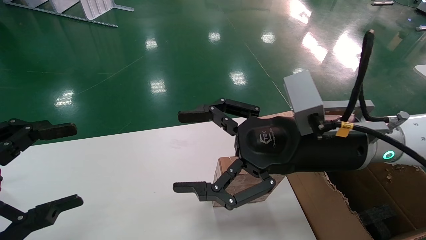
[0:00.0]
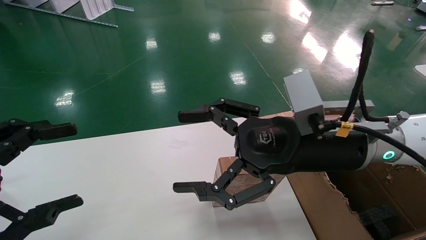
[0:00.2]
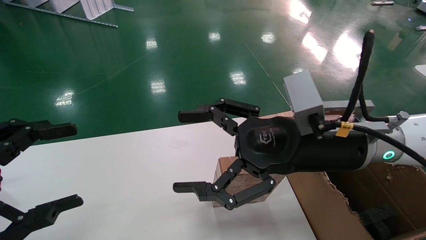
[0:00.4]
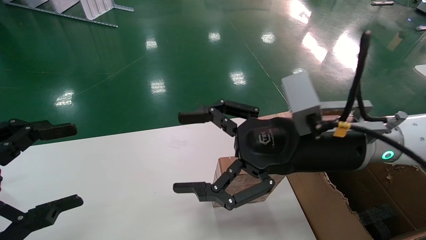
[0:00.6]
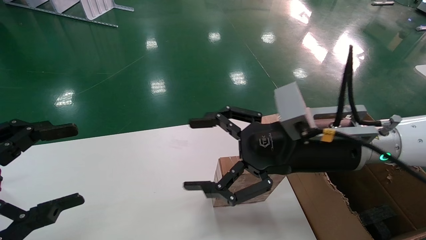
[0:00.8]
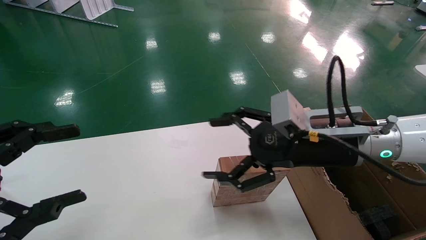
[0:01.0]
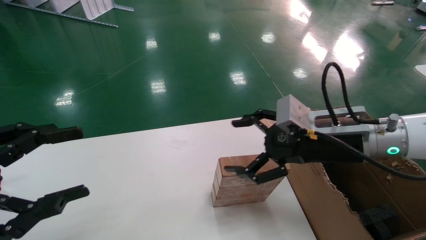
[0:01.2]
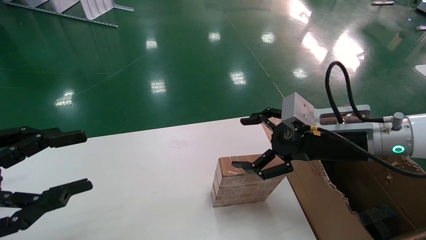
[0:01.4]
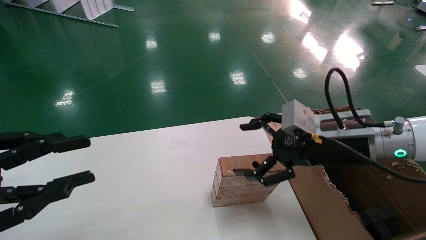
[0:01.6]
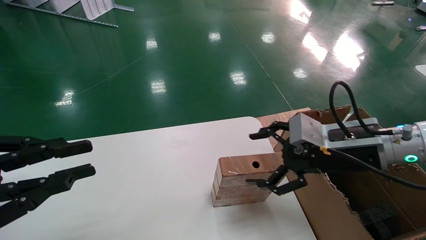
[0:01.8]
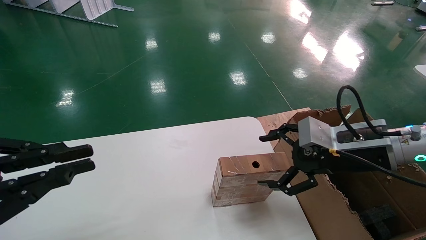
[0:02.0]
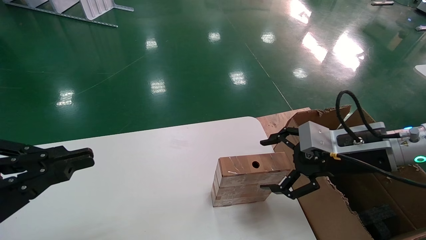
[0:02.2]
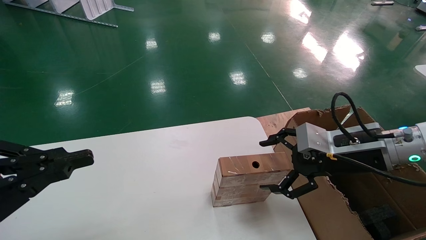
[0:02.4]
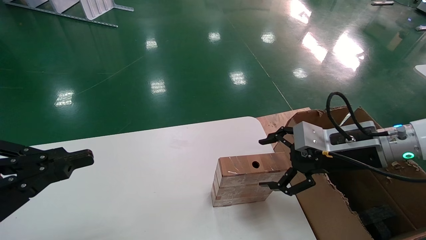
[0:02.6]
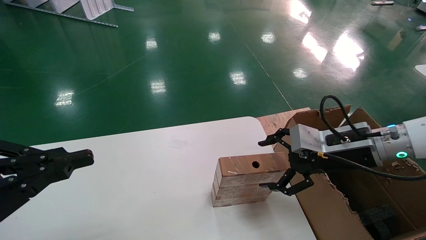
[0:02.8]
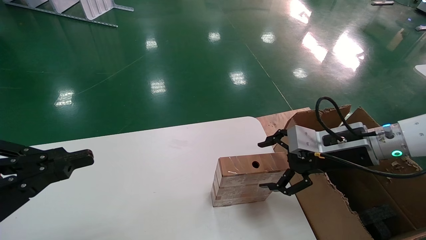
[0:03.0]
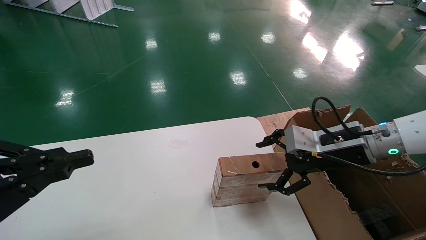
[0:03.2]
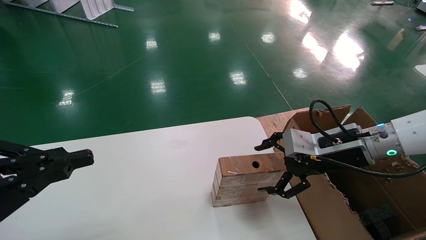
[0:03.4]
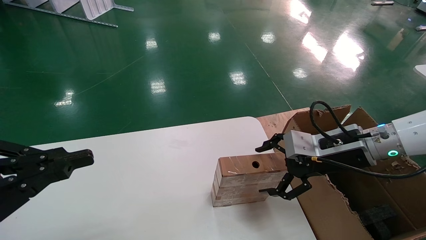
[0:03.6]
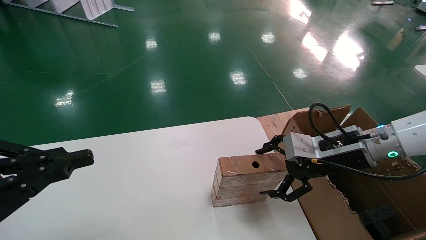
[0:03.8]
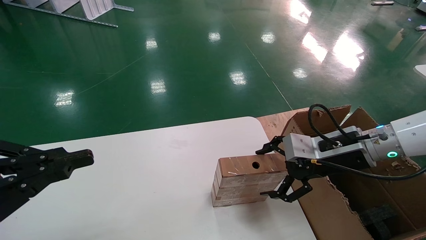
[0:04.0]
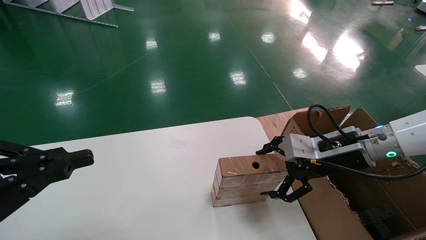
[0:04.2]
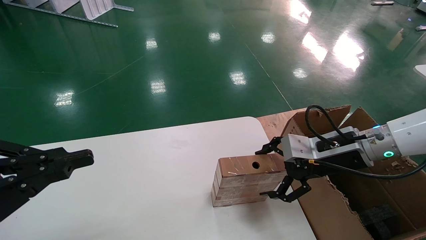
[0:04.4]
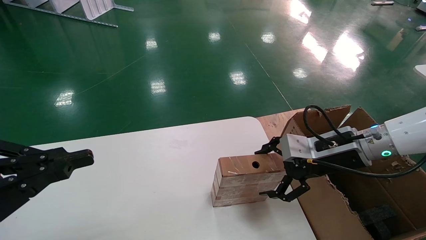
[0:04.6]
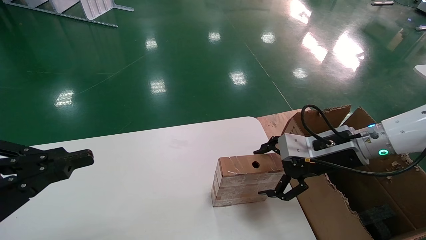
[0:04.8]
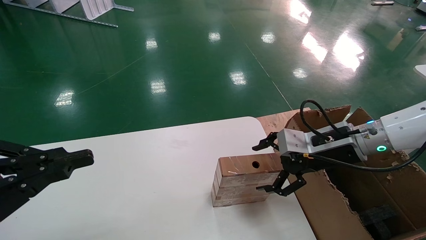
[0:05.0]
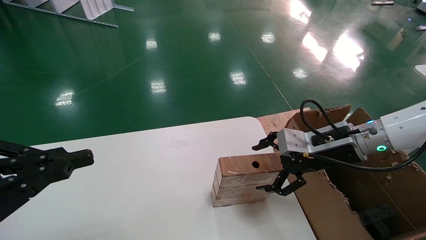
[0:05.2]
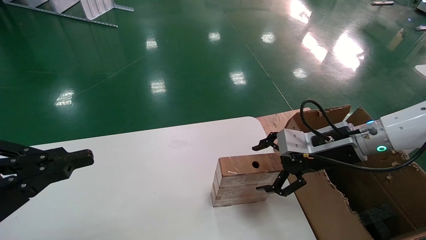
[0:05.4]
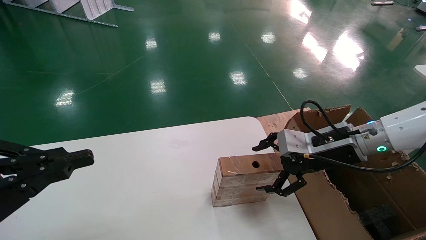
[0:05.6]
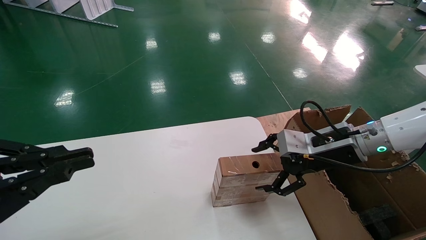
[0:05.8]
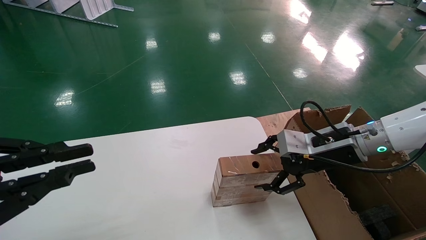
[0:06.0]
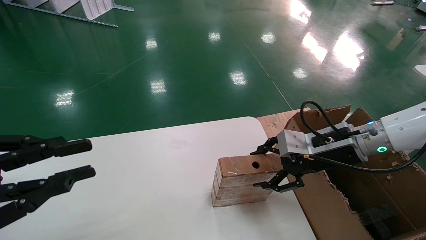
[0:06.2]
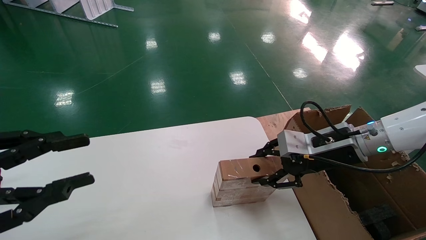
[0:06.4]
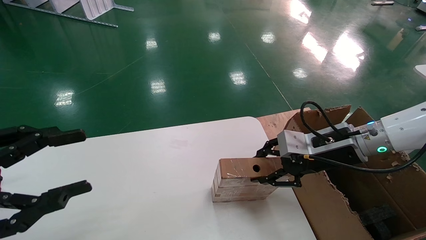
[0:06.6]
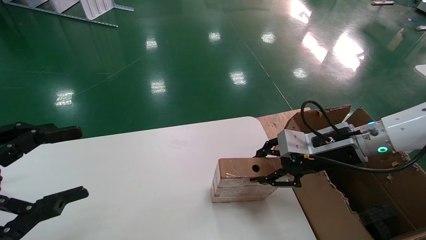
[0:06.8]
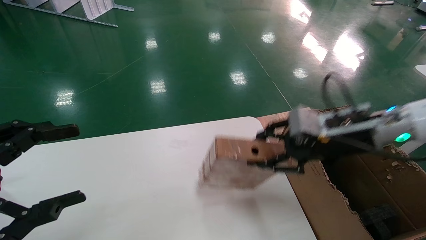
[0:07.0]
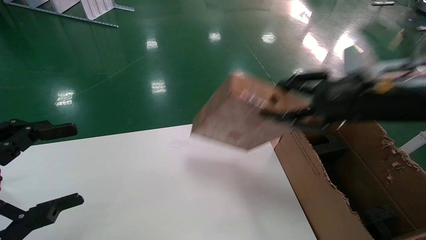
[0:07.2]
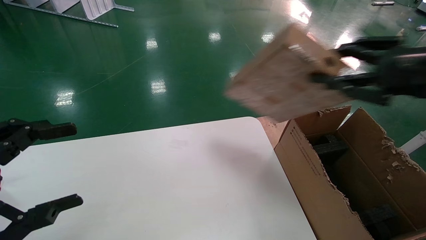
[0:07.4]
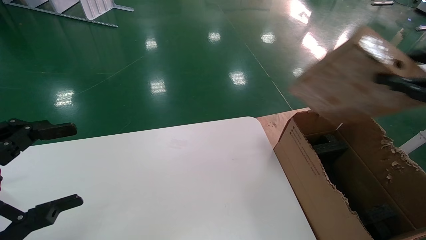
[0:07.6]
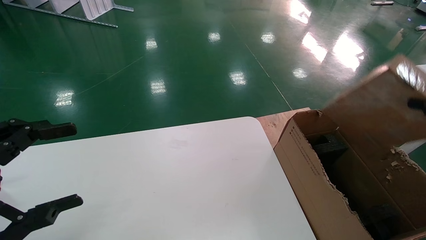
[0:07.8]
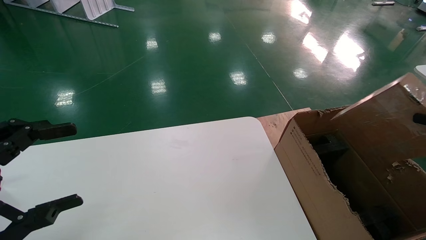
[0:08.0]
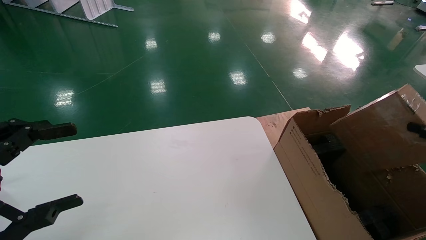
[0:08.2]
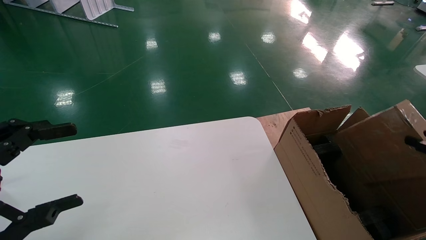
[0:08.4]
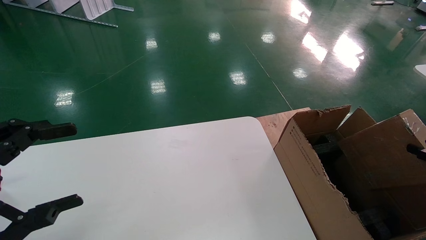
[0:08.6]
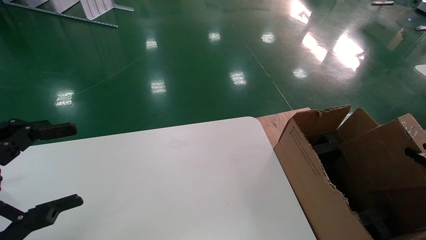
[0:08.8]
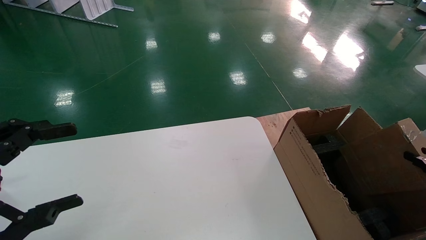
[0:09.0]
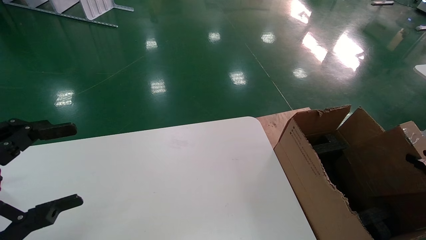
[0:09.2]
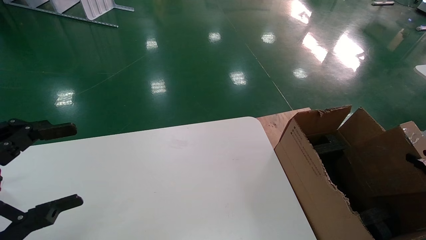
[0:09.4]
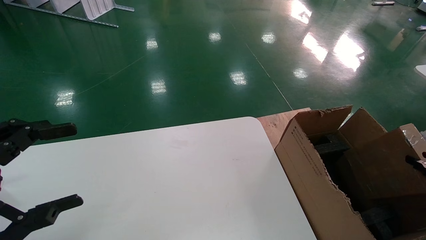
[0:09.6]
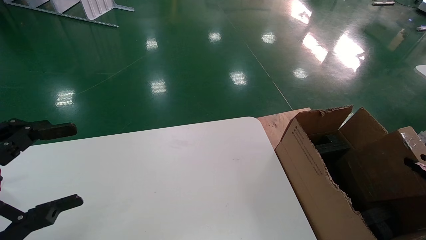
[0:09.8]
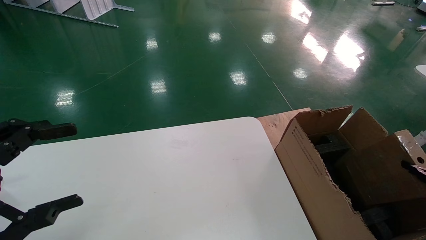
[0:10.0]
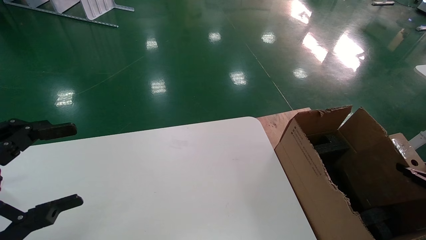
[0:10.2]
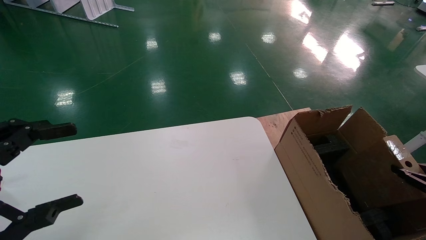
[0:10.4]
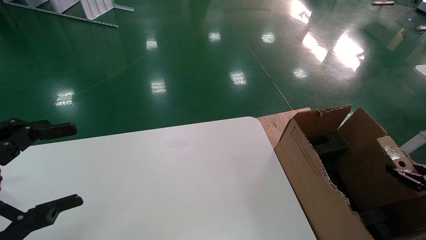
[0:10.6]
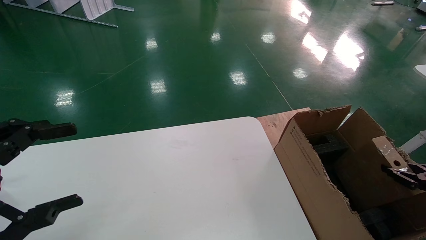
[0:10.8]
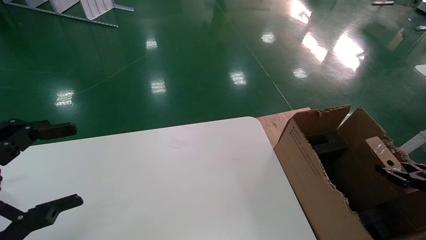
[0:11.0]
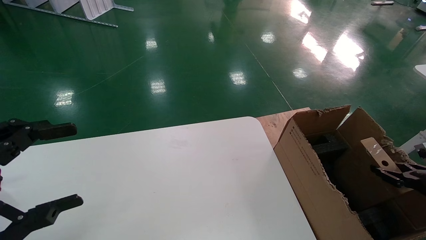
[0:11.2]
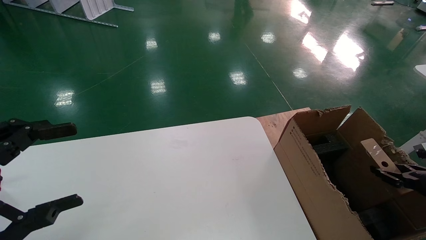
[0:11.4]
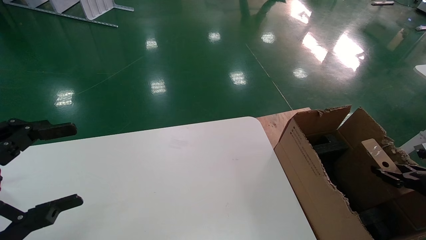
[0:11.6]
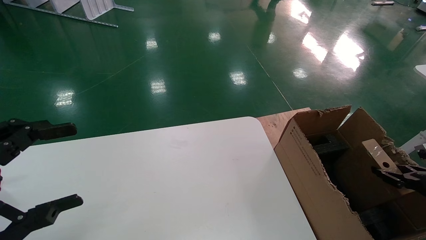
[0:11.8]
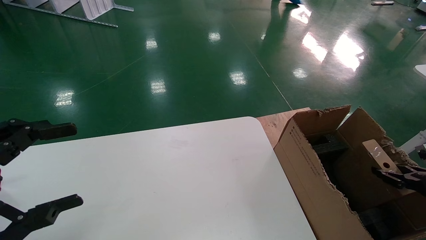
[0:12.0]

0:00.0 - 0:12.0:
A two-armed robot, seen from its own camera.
Task of the whole recording: put the box on the table into the big box.
Step, 0:01.2 - 0:06.4: Pick up the mouse and the power cord paper box.
0:00.0 - 0:01.6: The left gripper closes its fingers; the right gripper travels to the right by some 10 cm.
0:01.6 - 0:03.0: The left gripper closes its fingers, while the right gripper changes place by roughly 5 cm.
0:03.0 - 0:04.4: Both grippers stay put.
0:04.4 - 0:06.0: The two grippers keep their place.
0:06.0 - 0:07.6: The right gripper travels to the right, backward and upward by approximately 25 cm, and closes up. The left gripper opens its fingers.
0:07.6 - 0:09.0: The right gripper shifts some 25 cm downward and to the right.
0:09.0 - 0:10.4: The right gripper shifts by some 5 cm.
0:10.4 - 0:12.0: The right gripper ends up about 5 cm from where it was.

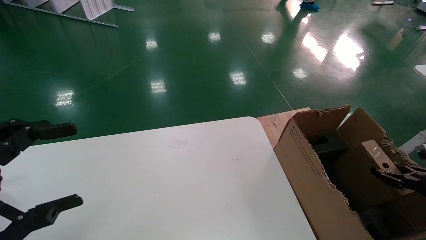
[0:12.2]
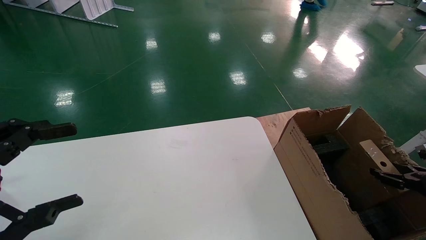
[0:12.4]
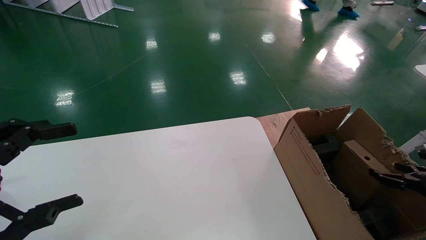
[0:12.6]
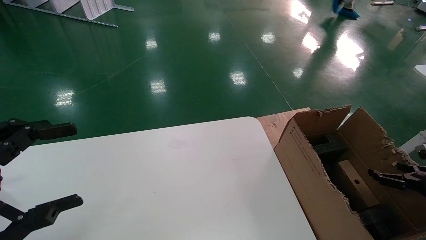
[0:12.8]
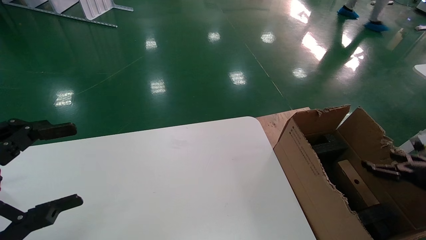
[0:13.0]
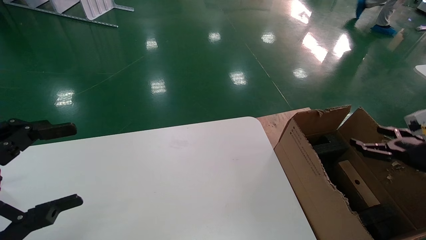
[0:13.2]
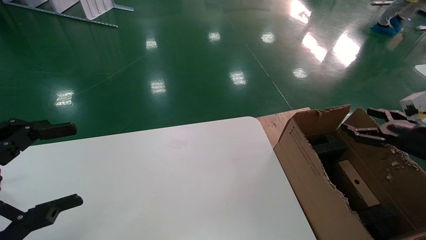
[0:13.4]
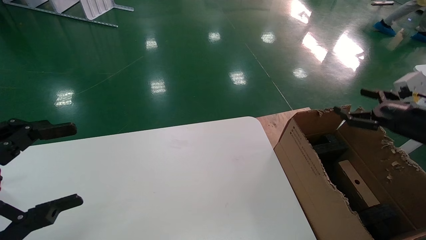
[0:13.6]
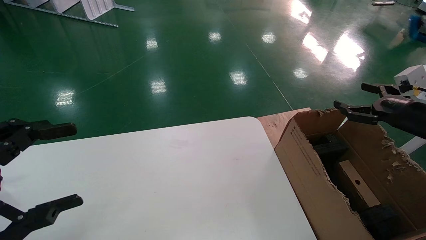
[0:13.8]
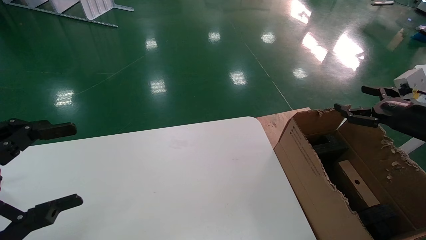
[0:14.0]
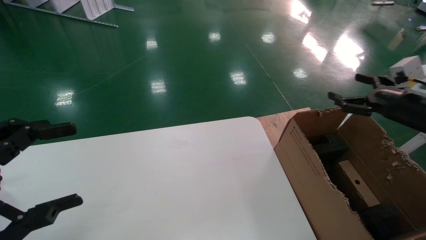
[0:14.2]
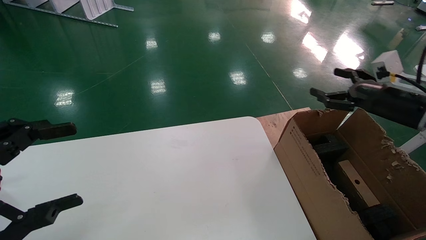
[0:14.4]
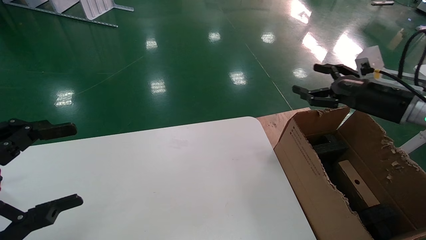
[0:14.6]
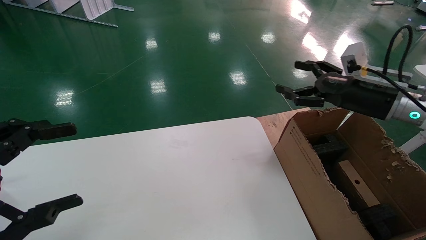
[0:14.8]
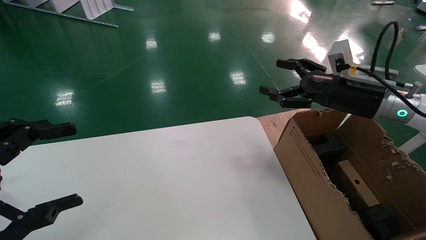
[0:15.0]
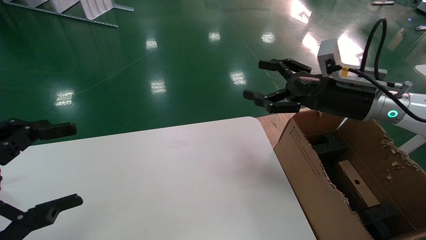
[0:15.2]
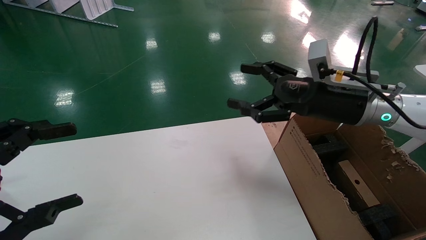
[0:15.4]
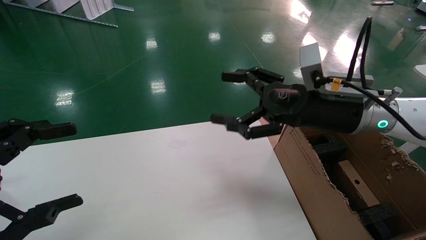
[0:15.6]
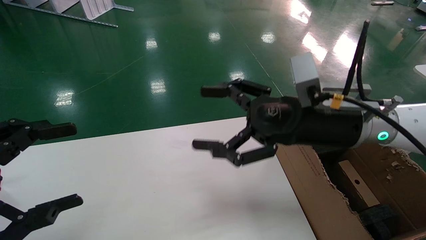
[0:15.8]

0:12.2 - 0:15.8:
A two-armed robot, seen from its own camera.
Task of the whole recording: put the box on the table into the big box.
0:12.2 - 0:14.0: The right gripper goes about 20 cm upward, to the left and forward, and opens its fingers.
0:14.0 - 0:15.8: The right gripper shifts about 25 cm to the left.
